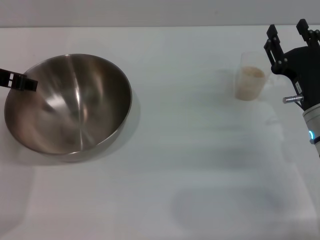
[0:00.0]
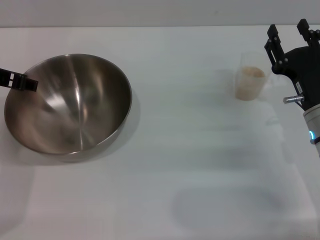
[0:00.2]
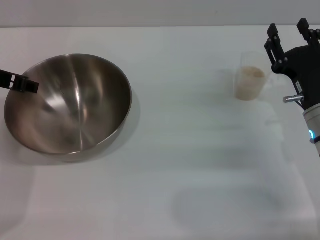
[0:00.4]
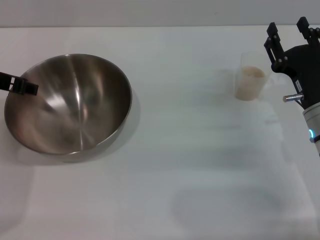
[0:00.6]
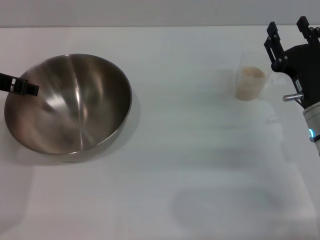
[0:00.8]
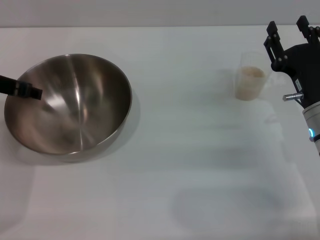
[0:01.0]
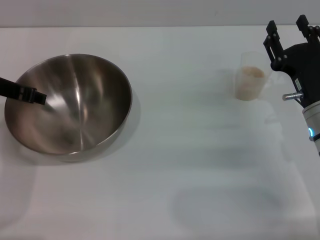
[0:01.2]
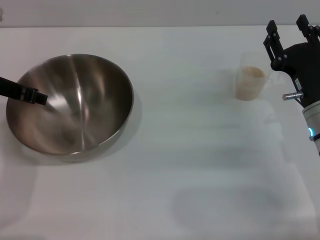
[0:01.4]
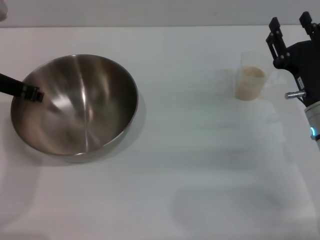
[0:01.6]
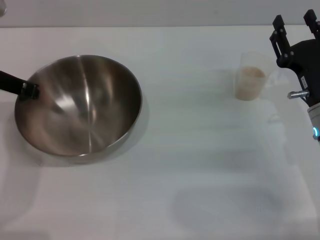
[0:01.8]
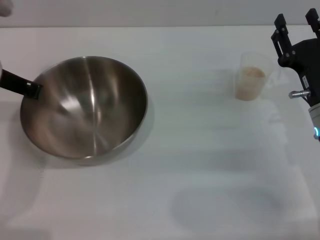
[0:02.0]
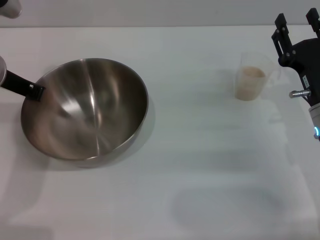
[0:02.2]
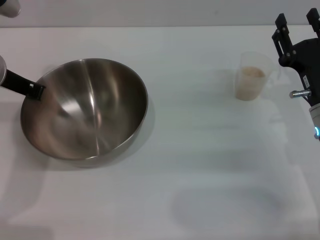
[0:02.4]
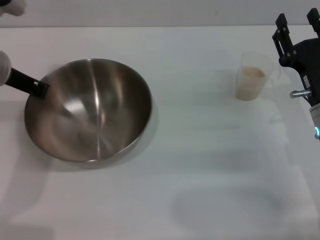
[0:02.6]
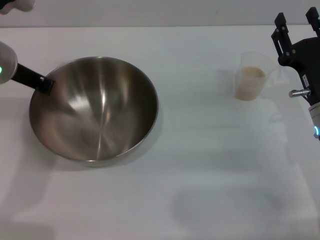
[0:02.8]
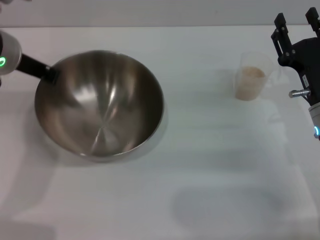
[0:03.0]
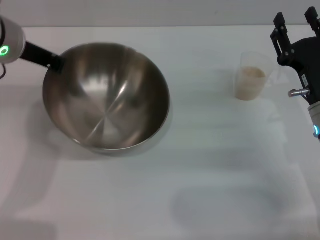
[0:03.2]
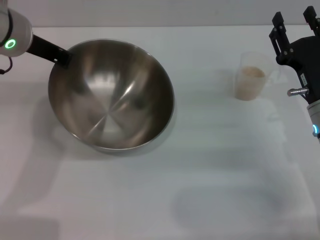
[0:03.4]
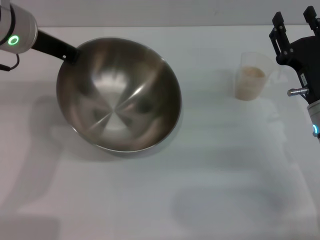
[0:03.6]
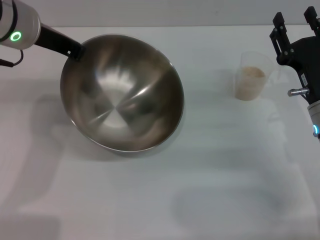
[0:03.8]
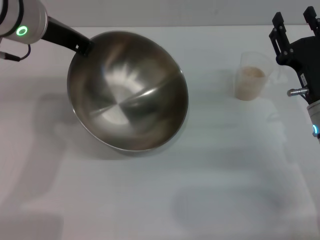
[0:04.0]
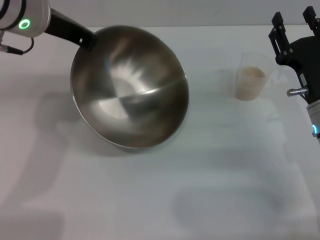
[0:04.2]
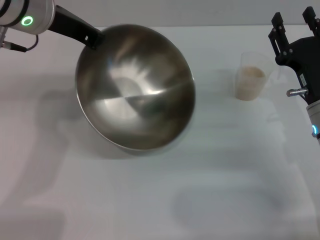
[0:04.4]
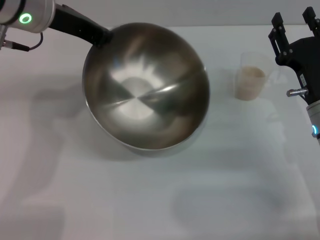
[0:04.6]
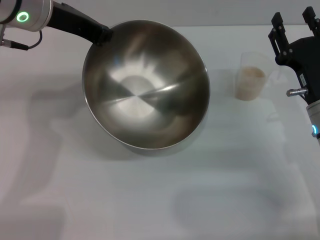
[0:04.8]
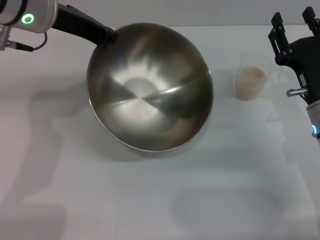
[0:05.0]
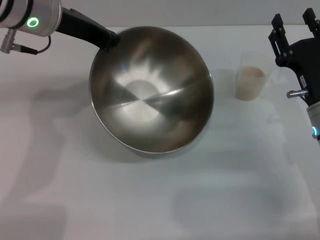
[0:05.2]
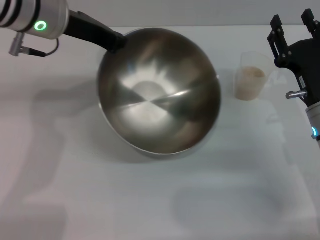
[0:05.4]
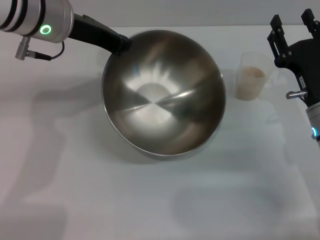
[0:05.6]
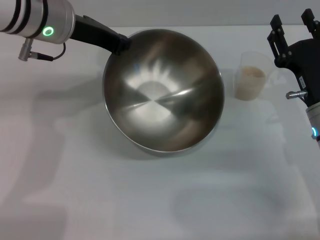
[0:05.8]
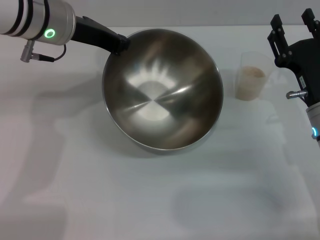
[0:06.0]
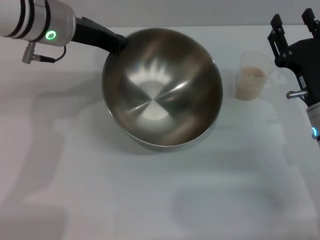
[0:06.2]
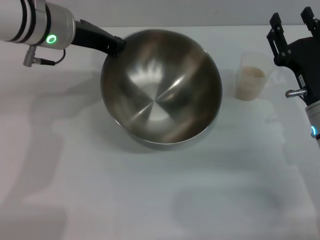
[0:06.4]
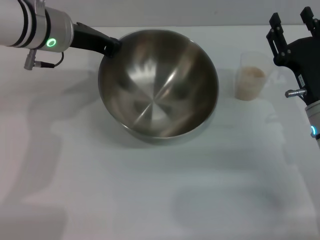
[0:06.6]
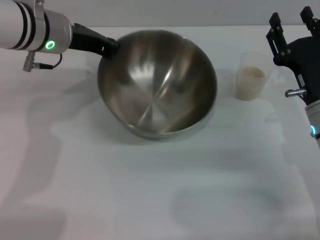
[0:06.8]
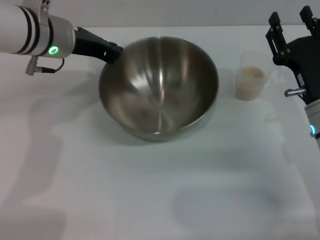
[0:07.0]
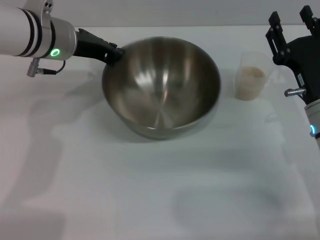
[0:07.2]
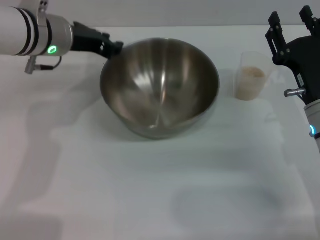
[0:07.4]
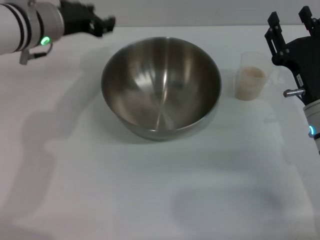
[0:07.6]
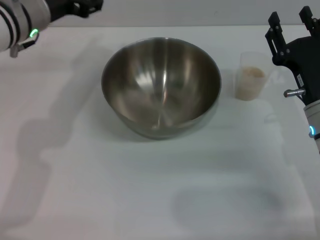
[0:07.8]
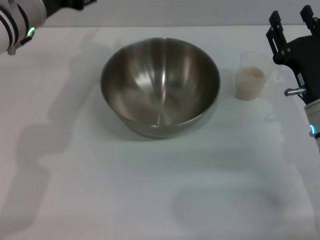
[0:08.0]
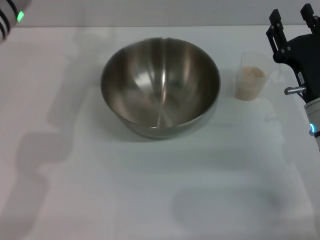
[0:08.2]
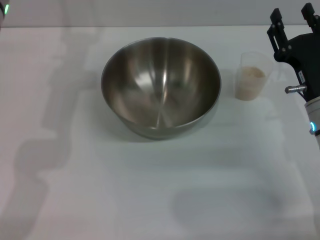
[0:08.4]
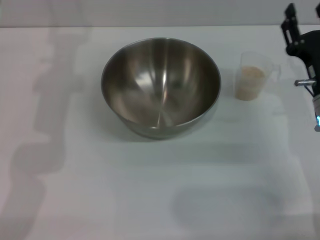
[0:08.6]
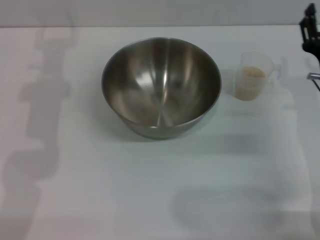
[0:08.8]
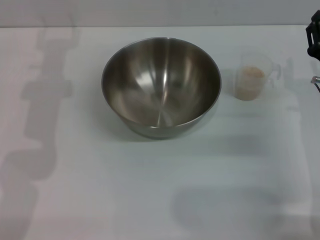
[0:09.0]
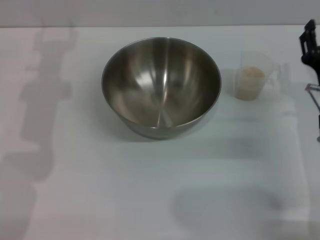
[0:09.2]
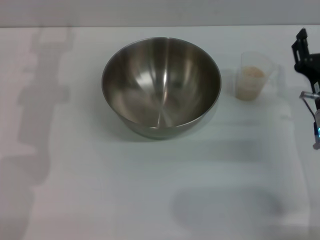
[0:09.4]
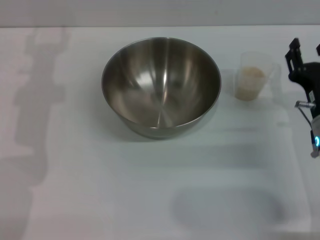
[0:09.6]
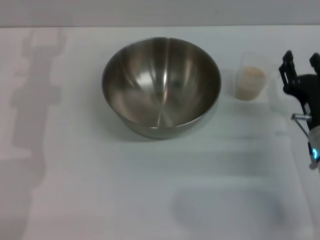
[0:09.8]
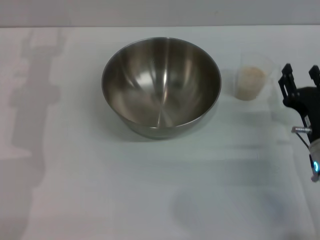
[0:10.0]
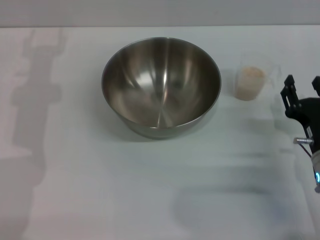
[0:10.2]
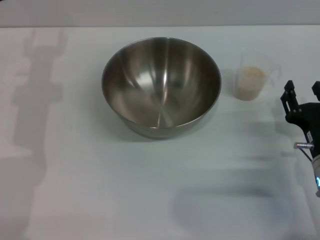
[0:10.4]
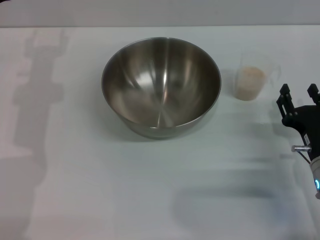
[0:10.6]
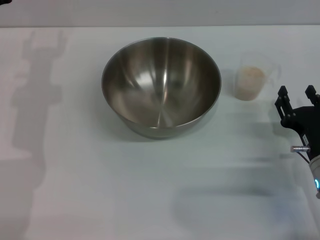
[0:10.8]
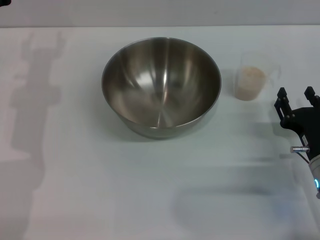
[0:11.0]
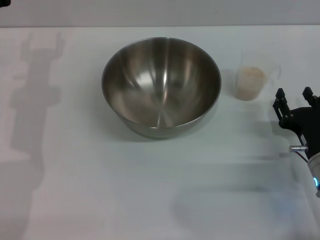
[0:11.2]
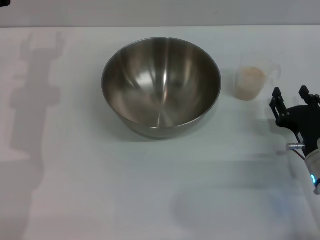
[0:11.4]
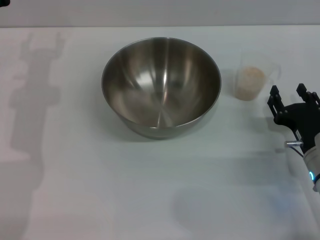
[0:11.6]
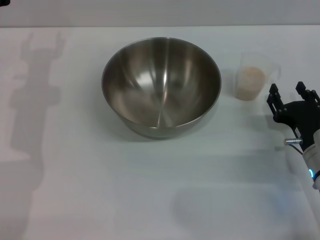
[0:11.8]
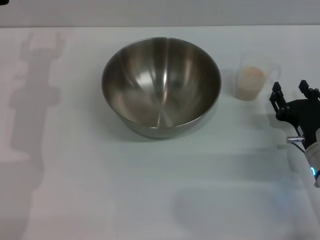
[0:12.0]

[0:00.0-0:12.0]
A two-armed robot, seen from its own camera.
Task of the whole recording: Place the bowl in the middle of the table with one hand and pour the rice from the grain cup into it with the other hand.
Step, 0:00.0 to 0:03.0: Pick up the bowl with the left gripper.
Step, 0:03.4 to 0:07.4: Place the bowl in the center of view with the left gripper.
0:00.0 to 0:01.6: The grippers make only small movements.
0:01.6 to 0:03.0: The left gripper closes.
0:03.0 to 0:04.4: The left gripper ends up some 5 cm from where it was.
0:06.0 to 0:07.6: The left gripper opens up.
0:07.6 to 0:09.0: The left gripper is displaced to the left by approximately 5 cm, and opens its fingers.
0:09.0 to 0:10.4: The right gripper moves backward, about 5 cm.
0:10.4 to 0:12.0: The grippers stay close to where they were, moving slightly.

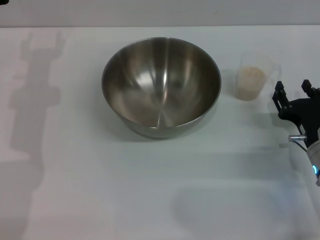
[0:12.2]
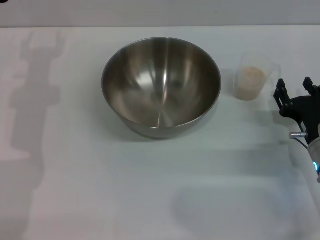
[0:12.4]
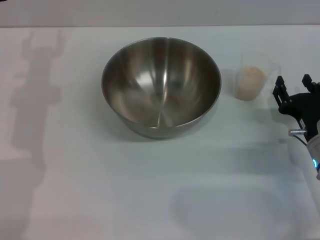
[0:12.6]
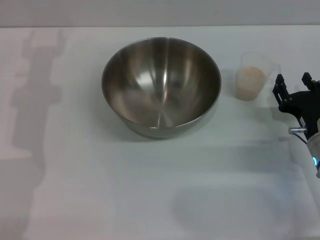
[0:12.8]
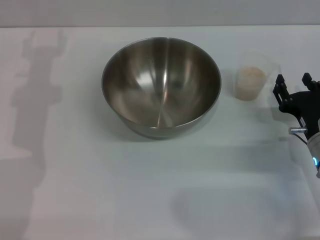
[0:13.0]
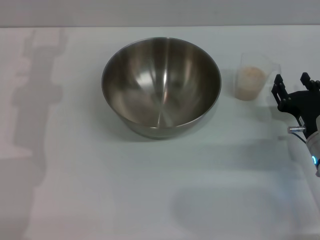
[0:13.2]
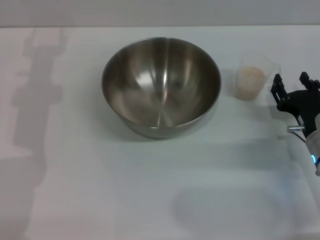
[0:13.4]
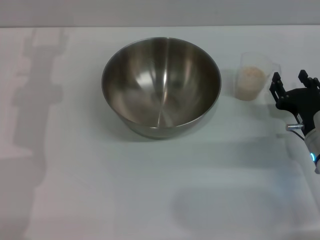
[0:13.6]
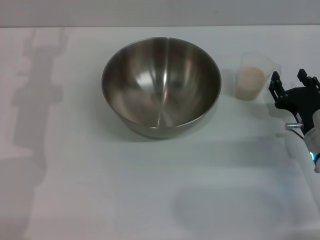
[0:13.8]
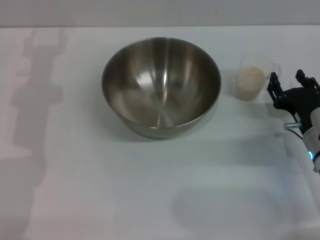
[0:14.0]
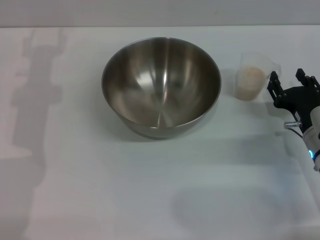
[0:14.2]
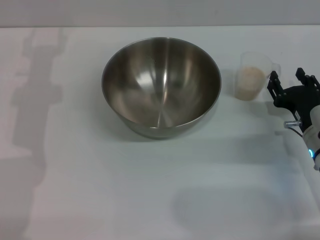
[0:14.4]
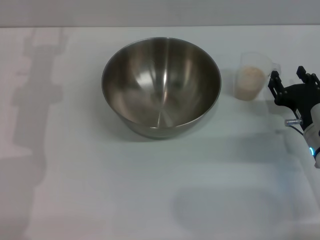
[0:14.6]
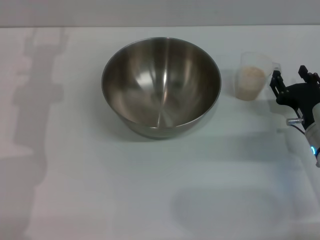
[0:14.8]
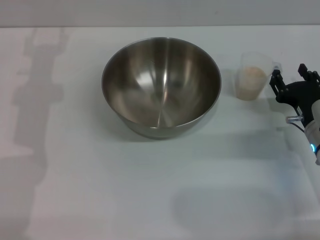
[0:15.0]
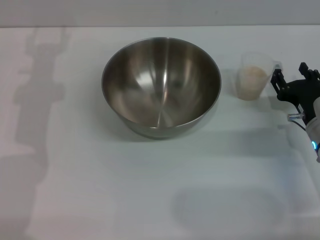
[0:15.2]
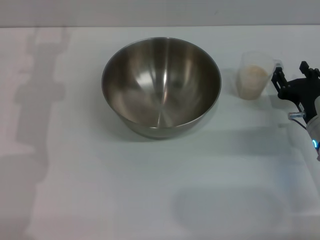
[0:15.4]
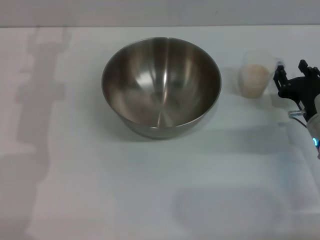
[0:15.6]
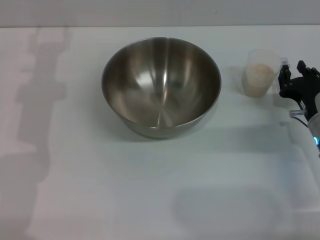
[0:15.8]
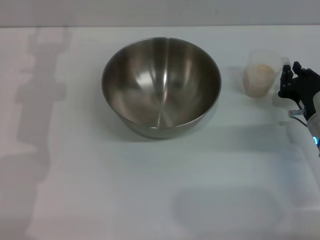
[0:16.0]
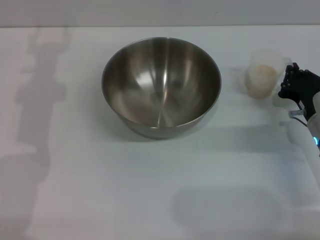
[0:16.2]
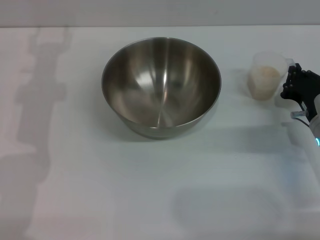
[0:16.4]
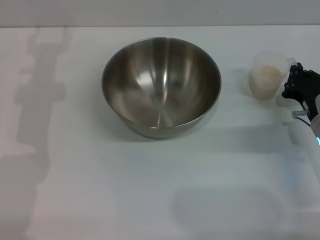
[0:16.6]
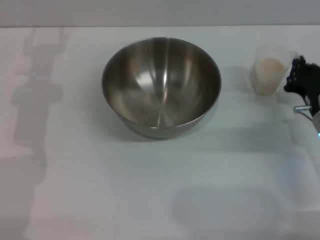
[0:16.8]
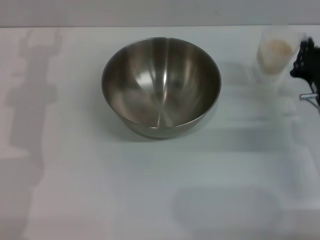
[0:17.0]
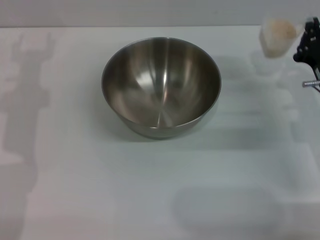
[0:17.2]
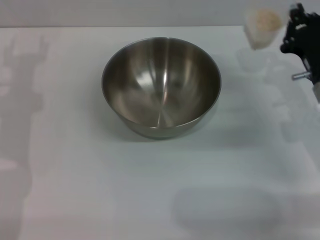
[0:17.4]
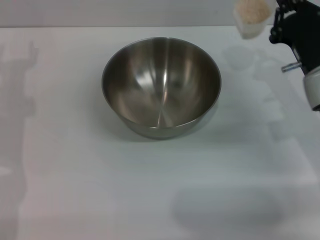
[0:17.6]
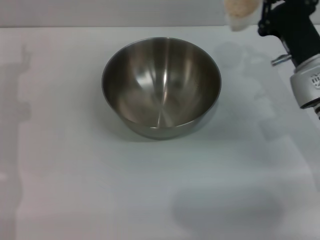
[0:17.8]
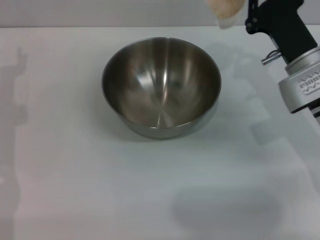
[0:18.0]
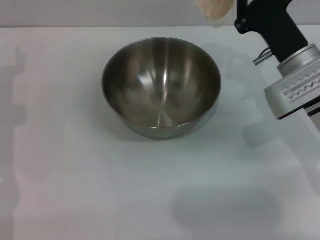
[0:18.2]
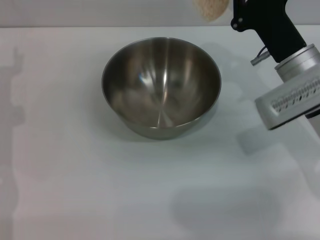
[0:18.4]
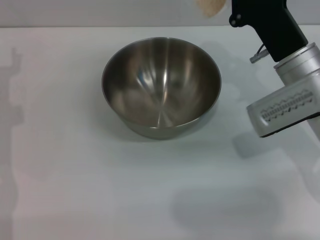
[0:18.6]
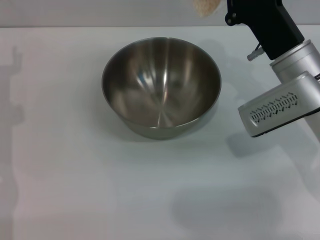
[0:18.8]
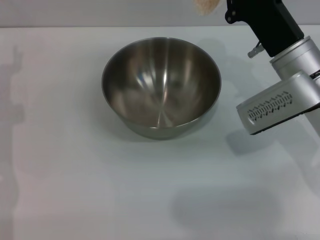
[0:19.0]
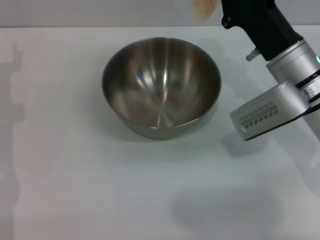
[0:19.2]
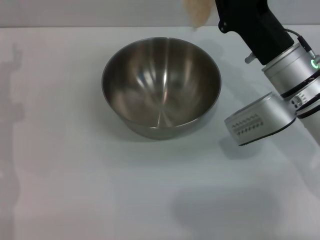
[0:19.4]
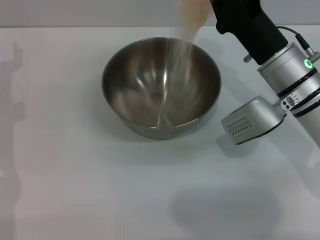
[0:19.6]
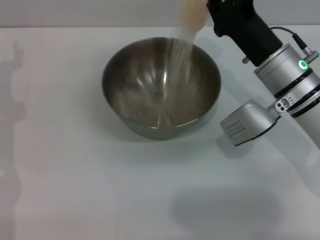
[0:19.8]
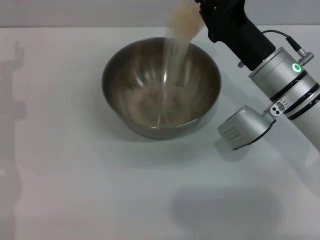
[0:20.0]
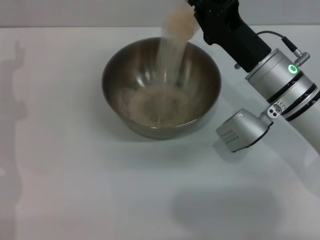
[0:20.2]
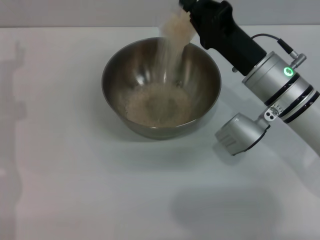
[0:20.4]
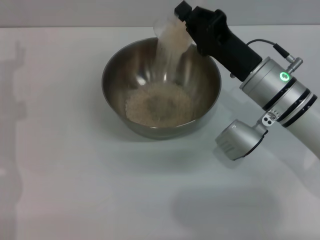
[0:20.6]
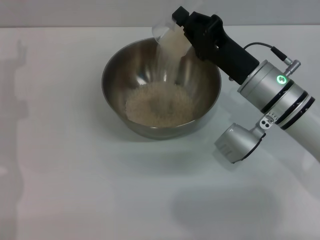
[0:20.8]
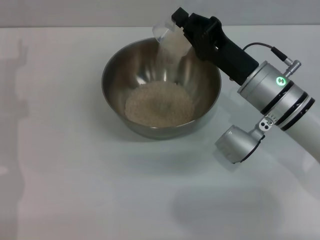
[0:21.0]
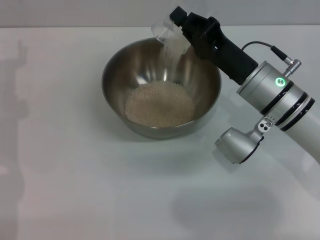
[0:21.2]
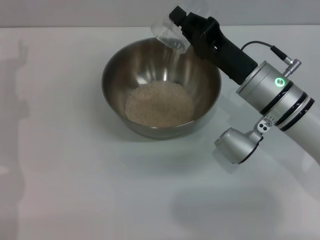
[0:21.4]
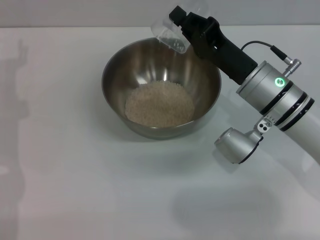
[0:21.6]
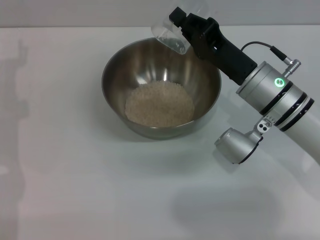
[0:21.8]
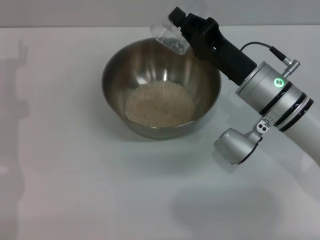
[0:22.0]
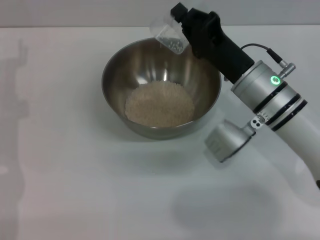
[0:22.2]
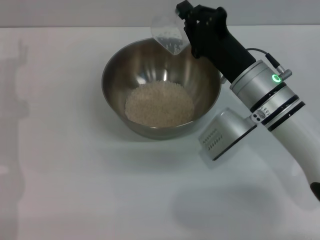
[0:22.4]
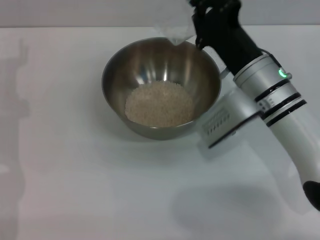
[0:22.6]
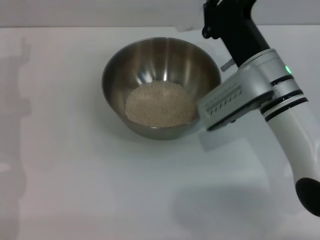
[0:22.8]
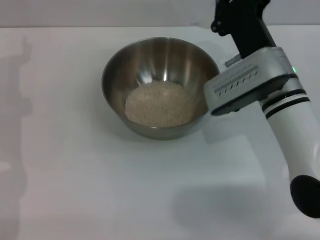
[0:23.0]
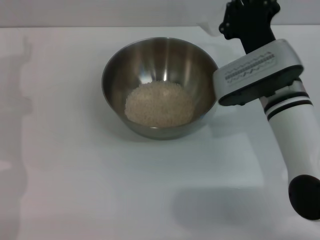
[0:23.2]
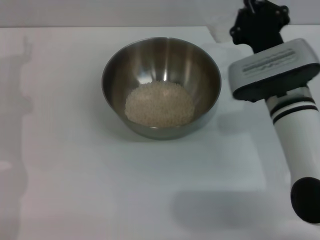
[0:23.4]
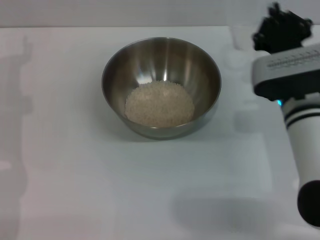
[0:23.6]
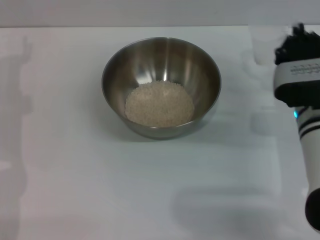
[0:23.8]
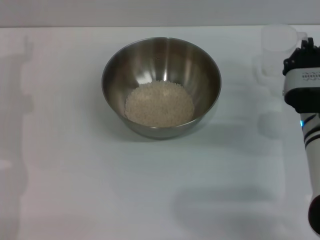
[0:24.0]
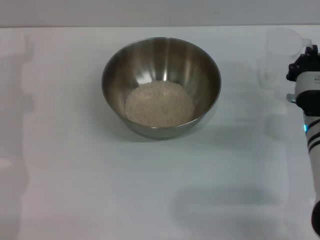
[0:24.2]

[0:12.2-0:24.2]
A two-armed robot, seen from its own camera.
Task of the whole recording: Place the bowl in the middle of the table with one hand and pour the rice from the grain cup into it with the other hand.
Step, 0:12.2 to 0:17.0: Pick up the cup with rice in it with the right gripper.
Step, 0:17.2 to 0:22.6: Pour the rice from the cup into the bowl with the right gripper.
0:12.2 to 0:15.2: There are only small adjustments of the grippers.
0:15.2 to 0:16.6: The right gripper closes.
0:16.6 to 0:18.2: The left gripper shifts approximately 5 cm to the left, while the right gripper heads upward and to the left, covering roughly 10 cm.
0:19.8 to 0:21.2: The grippers move only a little.
0:22.6 to 0:24.2: The right gripper is displaced to the right by some 5 cm.
